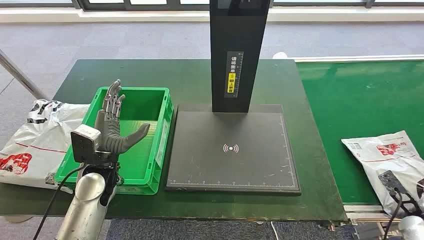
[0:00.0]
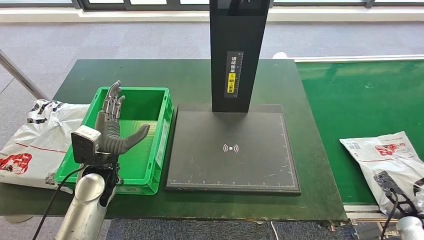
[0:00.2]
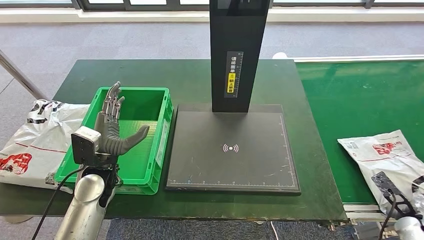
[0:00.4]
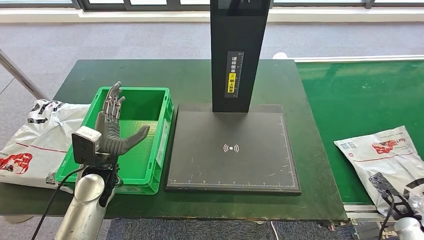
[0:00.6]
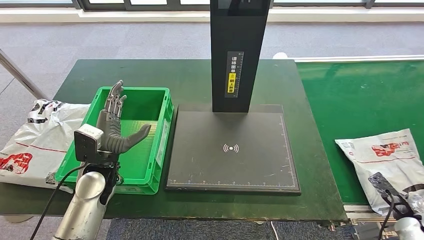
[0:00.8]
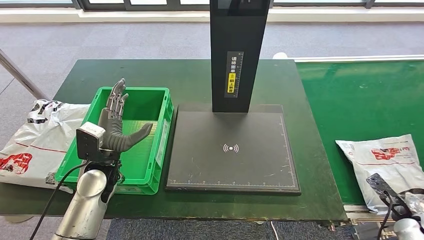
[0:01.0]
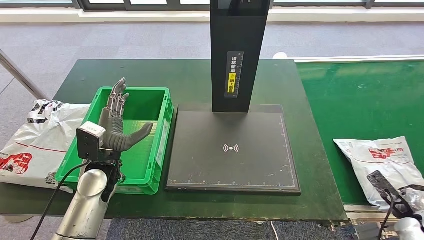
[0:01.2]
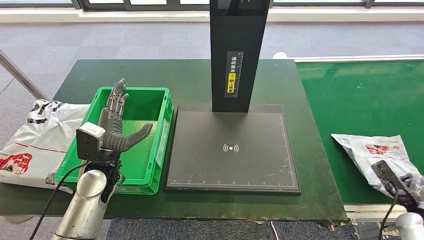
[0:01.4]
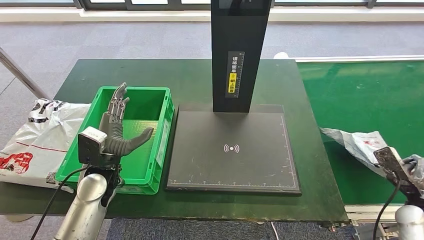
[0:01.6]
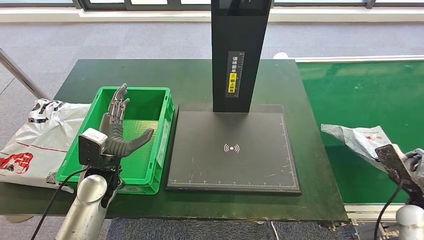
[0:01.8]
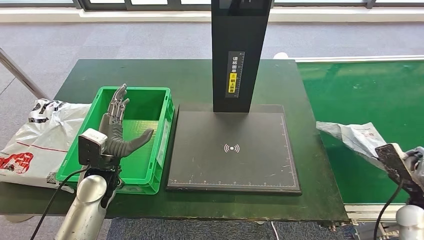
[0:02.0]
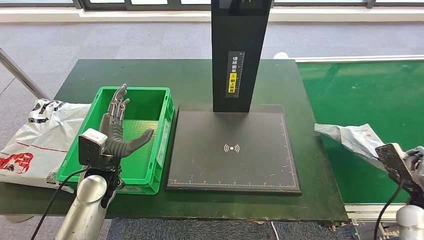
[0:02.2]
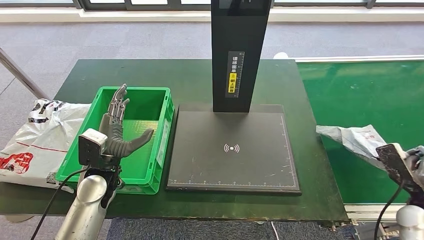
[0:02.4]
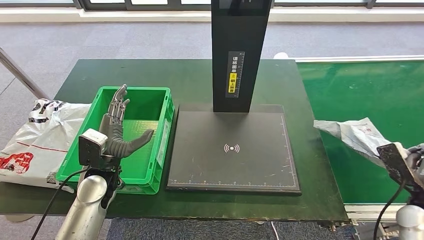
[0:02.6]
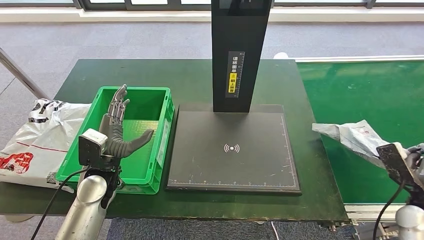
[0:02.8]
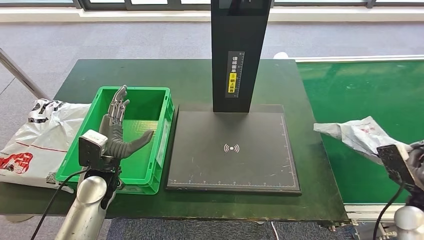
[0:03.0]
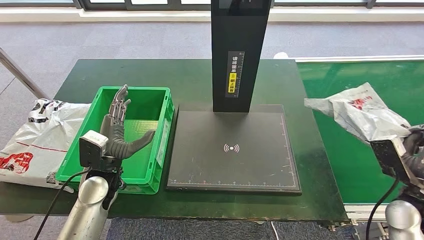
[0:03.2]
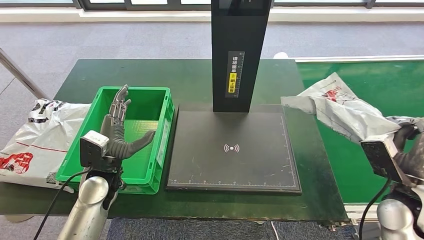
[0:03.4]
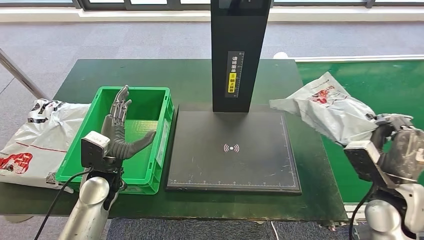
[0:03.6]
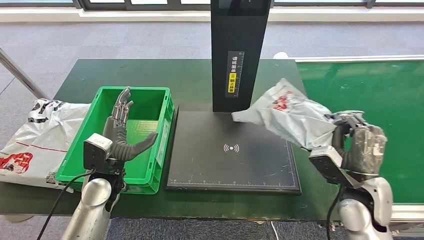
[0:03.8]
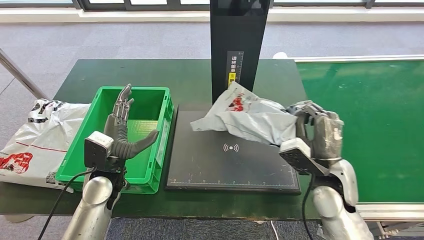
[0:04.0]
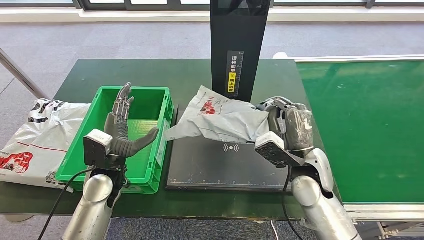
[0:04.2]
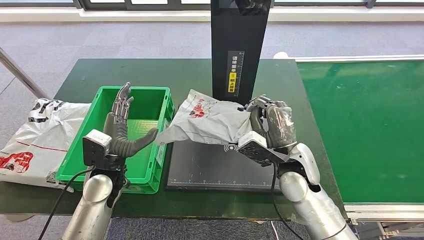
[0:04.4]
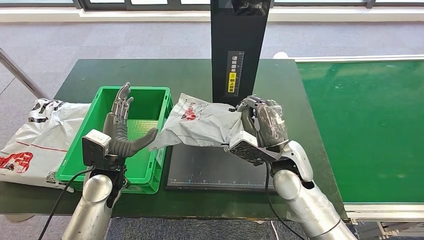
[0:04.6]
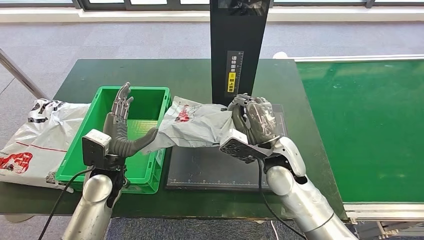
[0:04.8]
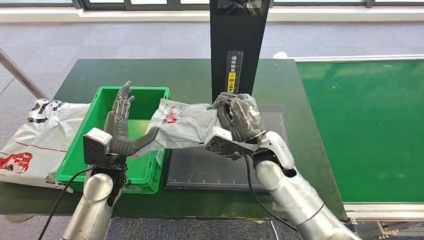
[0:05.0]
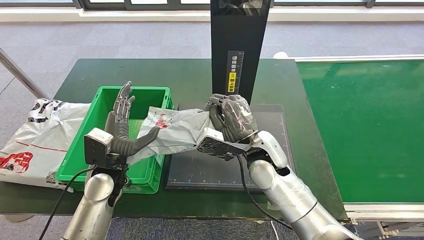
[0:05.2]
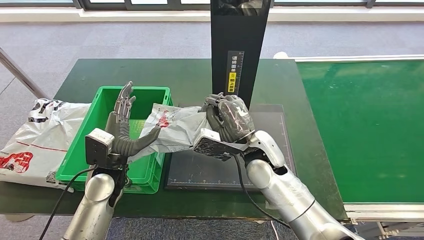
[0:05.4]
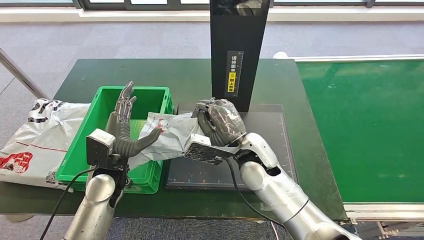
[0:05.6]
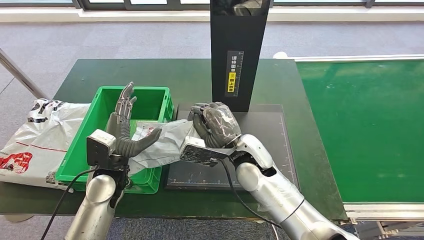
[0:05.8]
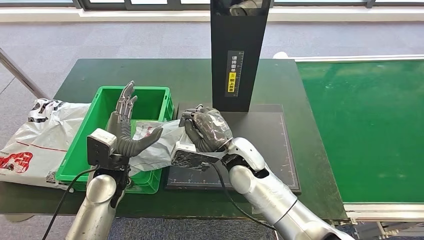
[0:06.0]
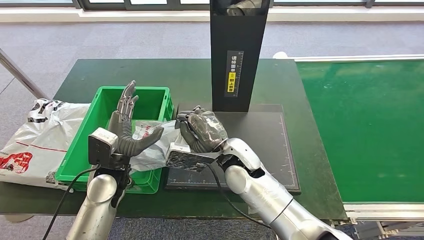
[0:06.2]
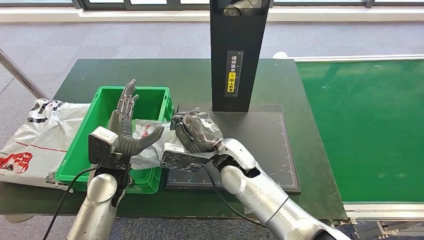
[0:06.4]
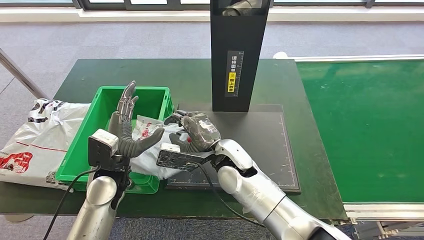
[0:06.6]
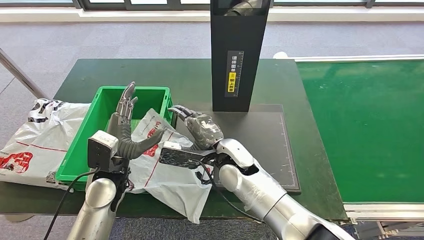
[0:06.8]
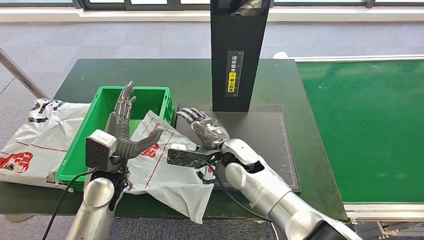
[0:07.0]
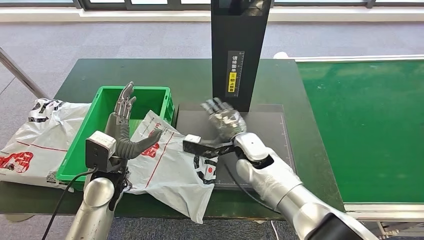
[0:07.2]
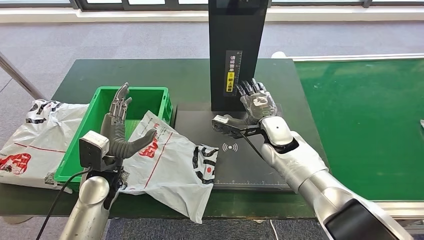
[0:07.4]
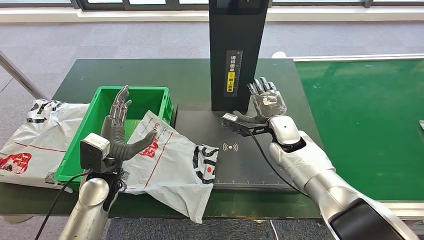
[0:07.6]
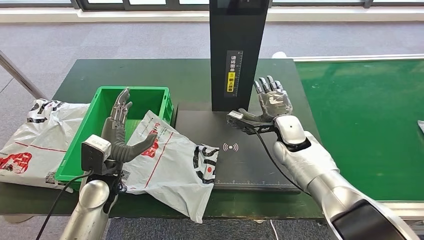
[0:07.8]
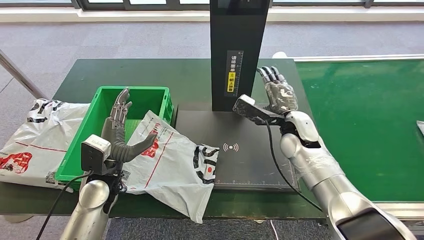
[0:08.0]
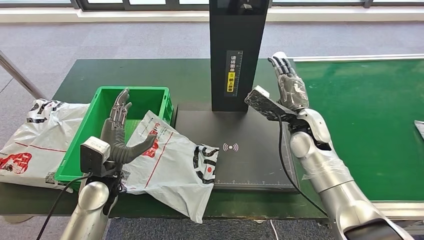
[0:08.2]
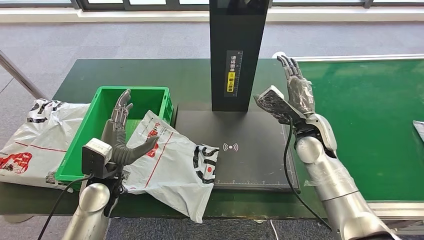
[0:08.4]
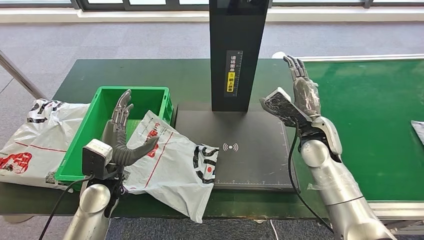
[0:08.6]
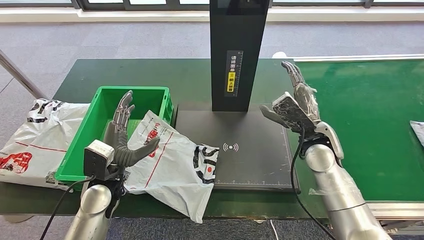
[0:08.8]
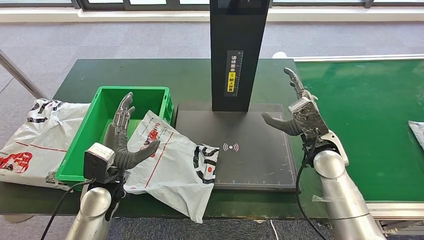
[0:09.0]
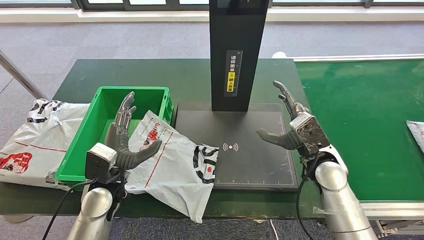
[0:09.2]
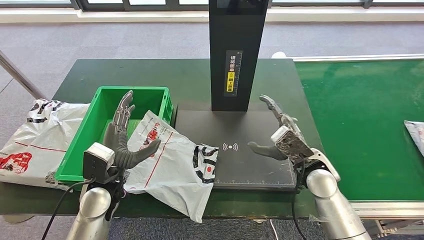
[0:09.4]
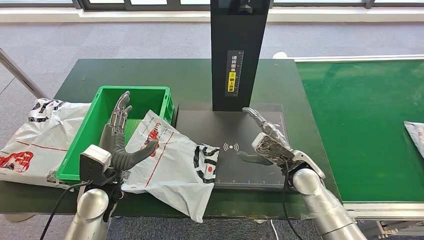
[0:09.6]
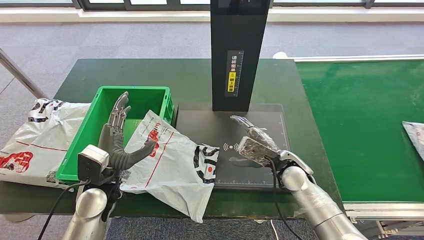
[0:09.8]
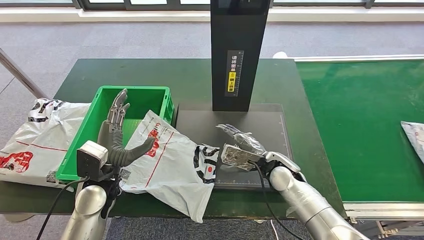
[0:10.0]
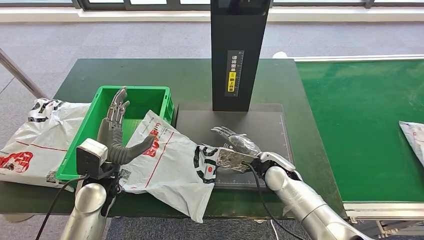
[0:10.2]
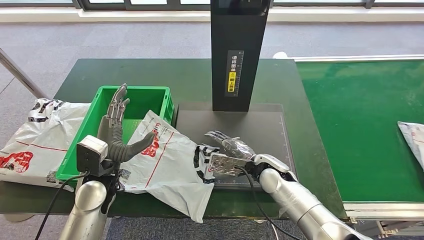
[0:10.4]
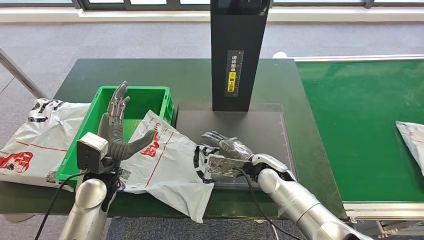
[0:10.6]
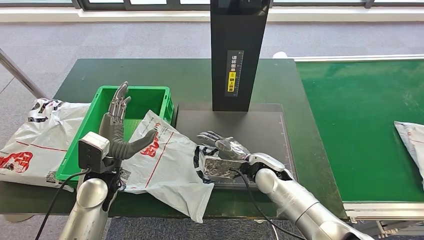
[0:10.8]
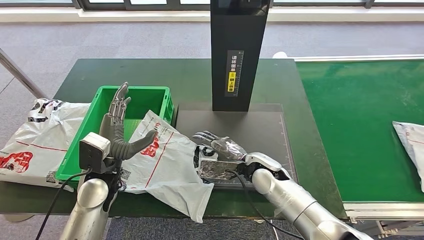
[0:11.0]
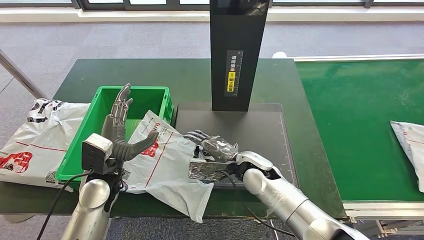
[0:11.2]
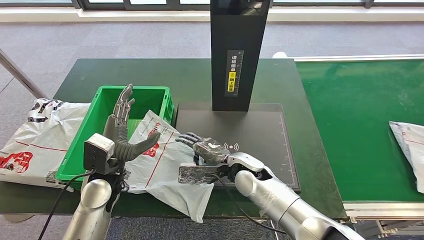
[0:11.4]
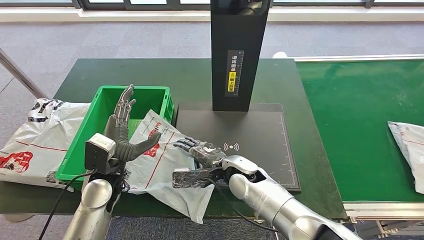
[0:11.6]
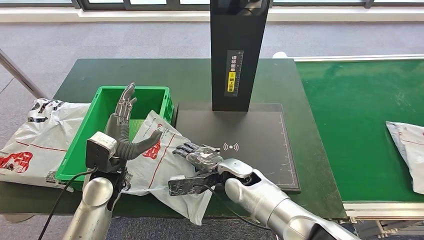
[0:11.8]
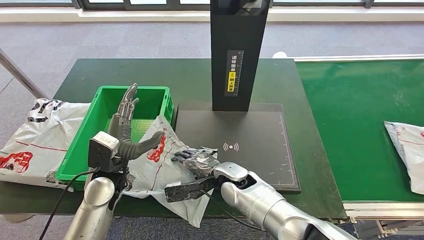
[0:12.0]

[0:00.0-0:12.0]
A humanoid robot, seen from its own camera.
Step, 0:00.0 to 0:02.2: Take the parcel off the conveyor belt.
Step, 0:02.4 to 0:08.6: Place the parcel onto the inbound machine.
0:01.6 to 0:03.0: The right hand shifts by some 5 cm.
0:04.4 to 0:06.0: The right hand moves to the left, roughly 15 cm.
0:07.6 to 0:09.0: The right hand goes about 10 cm to the right and backward.
0:09.0 to 0:10.4: The right hand is displaced to the left and downward by about 15 cm.
0:10.4 to 0:12.0: The right hand moves to the left, about 10 cm.

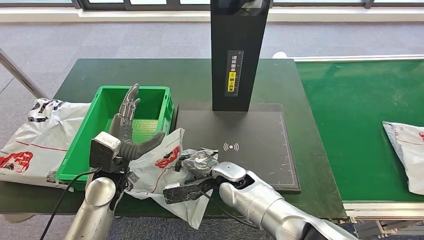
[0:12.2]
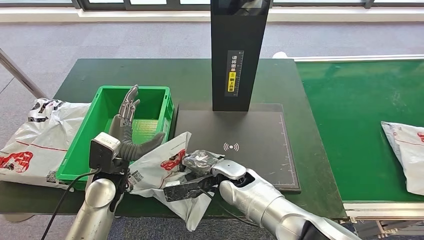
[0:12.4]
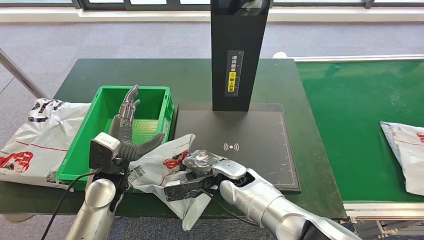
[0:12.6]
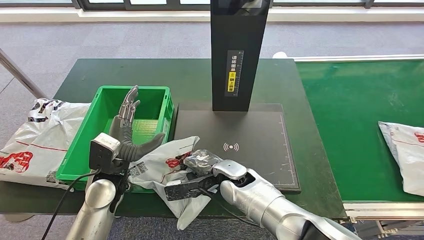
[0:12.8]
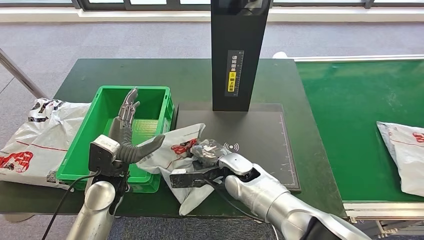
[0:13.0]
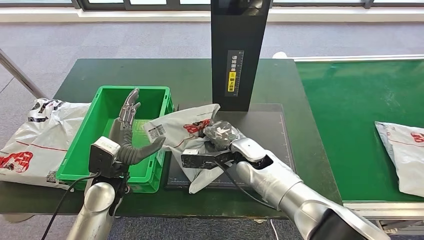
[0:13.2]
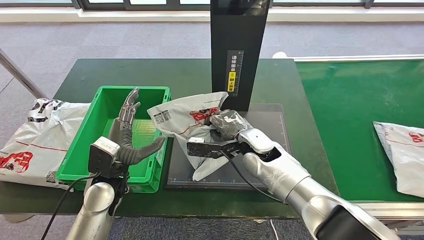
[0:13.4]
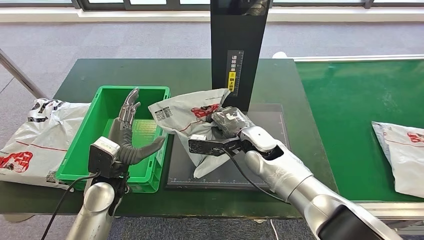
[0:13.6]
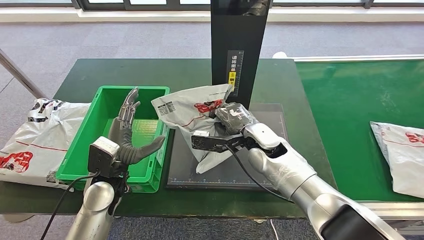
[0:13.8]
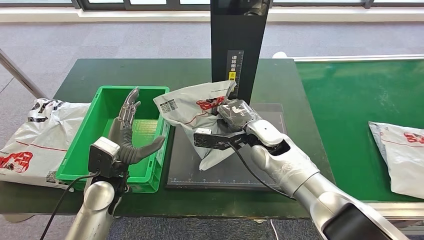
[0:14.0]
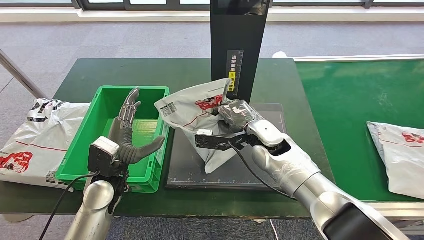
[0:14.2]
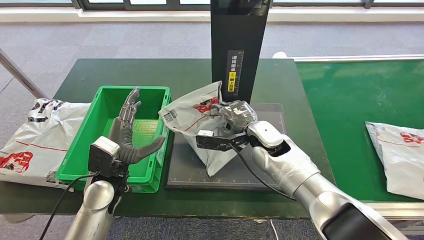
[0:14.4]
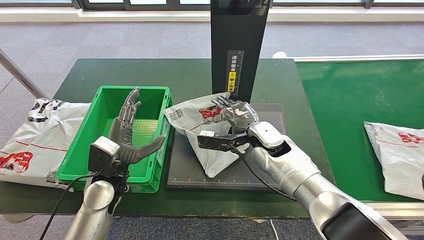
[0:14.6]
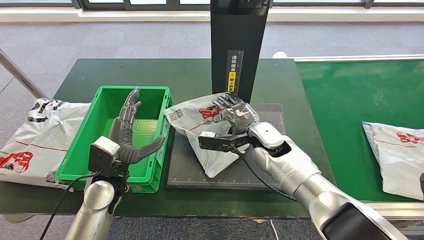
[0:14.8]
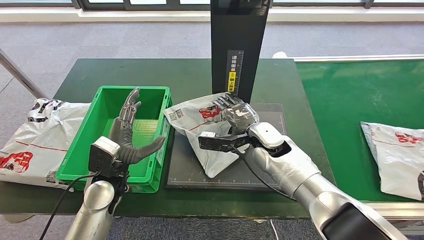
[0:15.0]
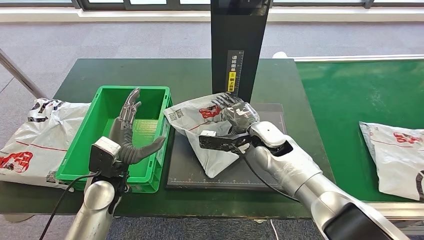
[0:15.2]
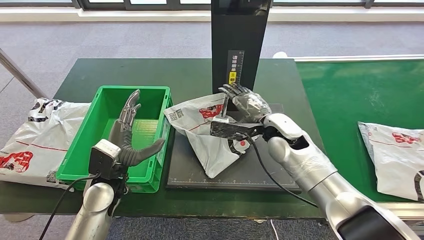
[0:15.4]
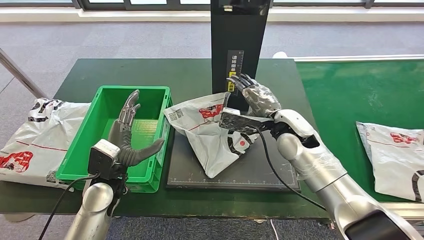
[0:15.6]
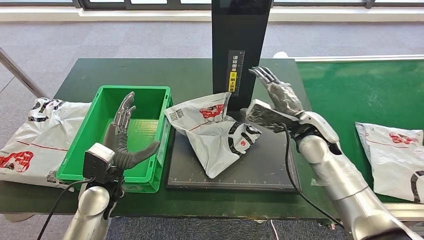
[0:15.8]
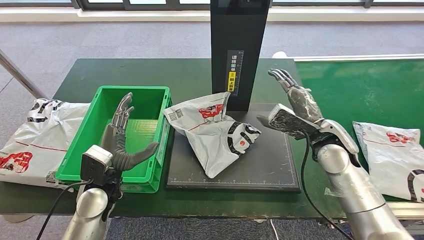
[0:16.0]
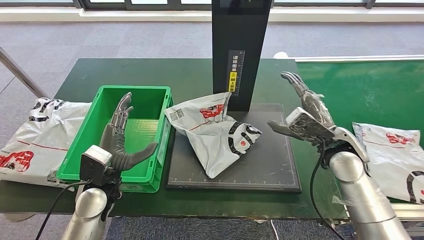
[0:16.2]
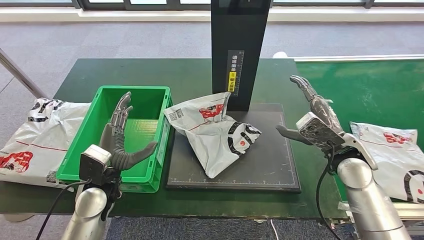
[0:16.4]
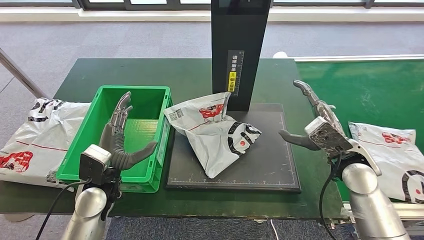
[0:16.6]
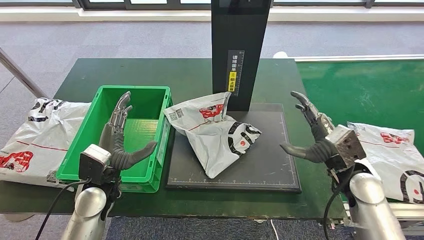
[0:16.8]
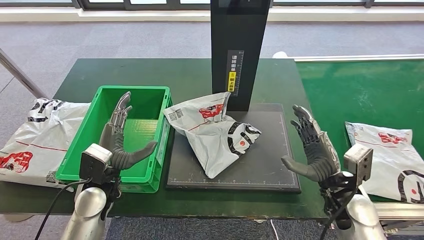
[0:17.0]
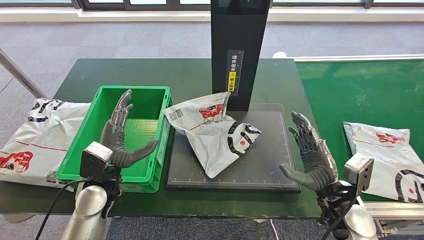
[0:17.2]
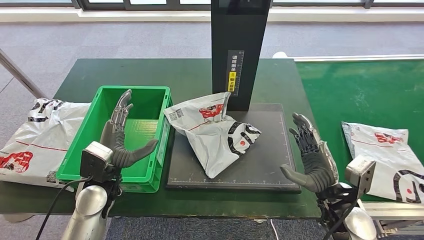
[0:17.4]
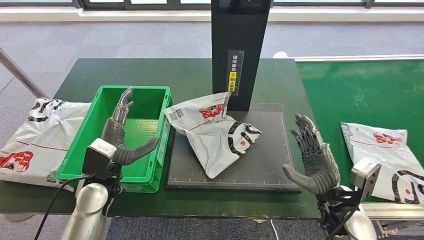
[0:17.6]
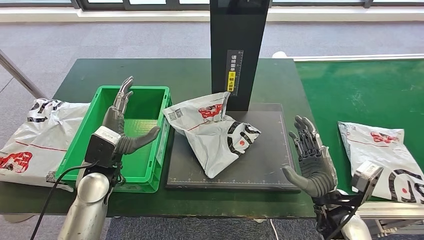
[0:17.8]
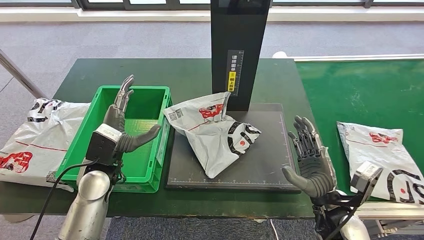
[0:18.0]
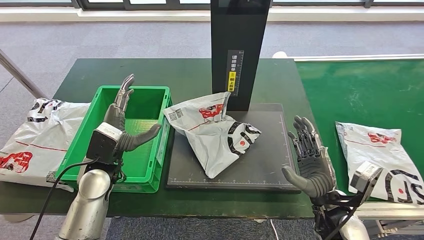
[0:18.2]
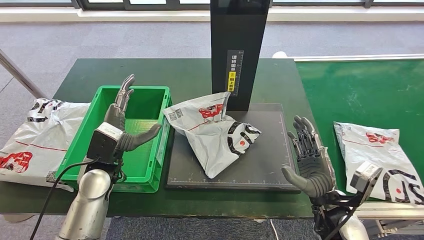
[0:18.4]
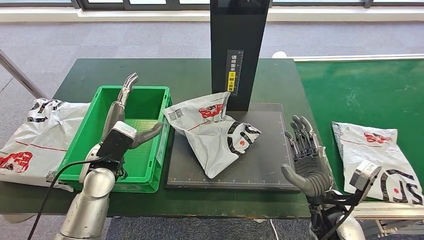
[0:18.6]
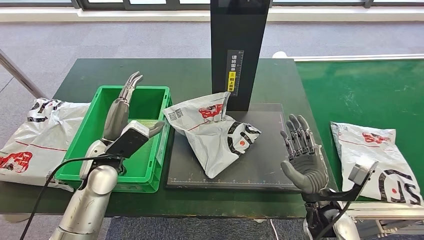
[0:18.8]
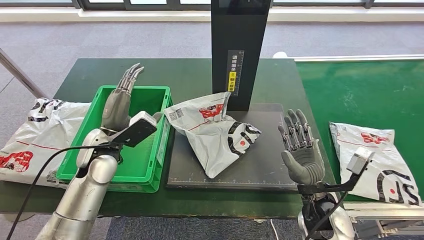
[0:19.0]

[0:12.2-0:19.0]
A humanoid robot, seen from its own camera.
0:13.6 to 0:15.0: The hands make only small movements.
0:16.2 to 0:17.6: The right hand shifts roughly 15 cm backward and downward.
0:17.6 to 0:19.0: The left hand heads forward, covering about 5 cm.
